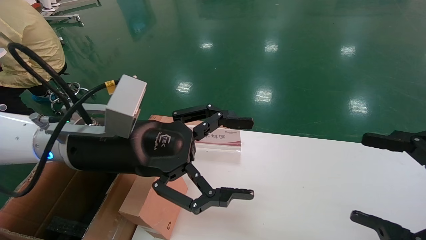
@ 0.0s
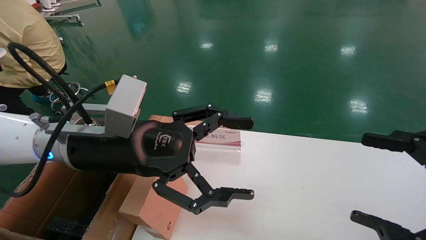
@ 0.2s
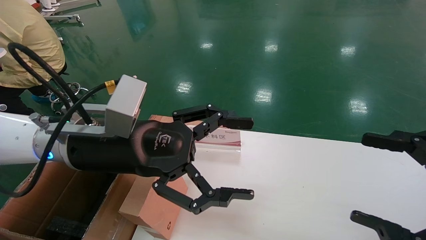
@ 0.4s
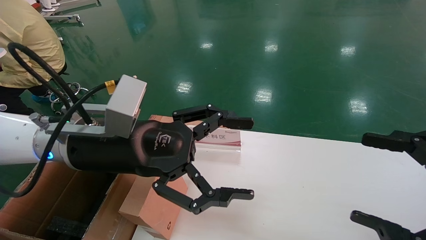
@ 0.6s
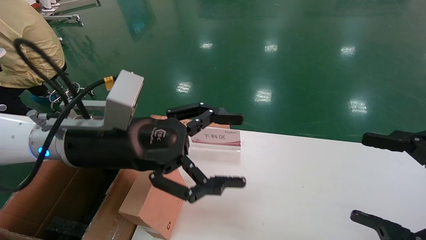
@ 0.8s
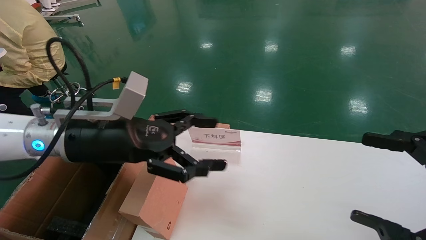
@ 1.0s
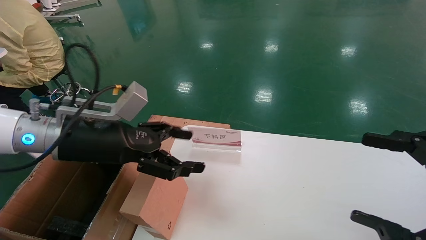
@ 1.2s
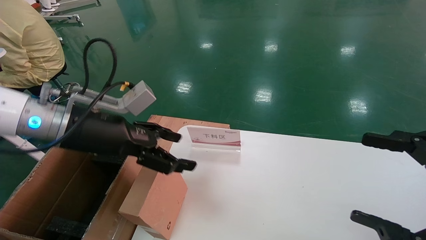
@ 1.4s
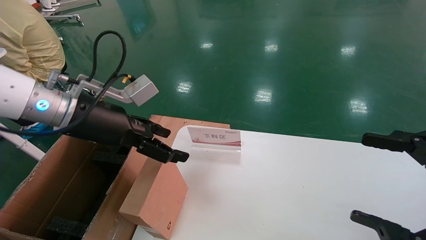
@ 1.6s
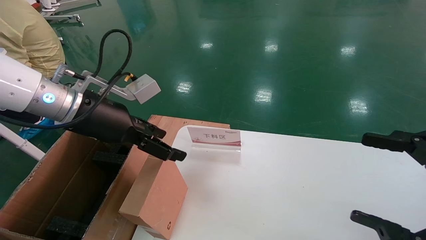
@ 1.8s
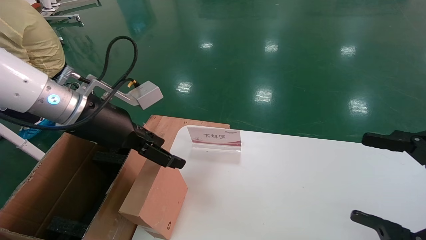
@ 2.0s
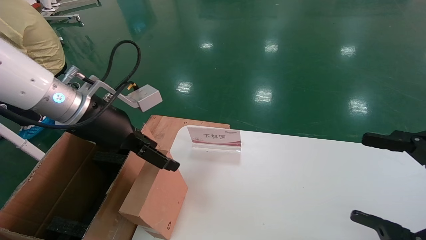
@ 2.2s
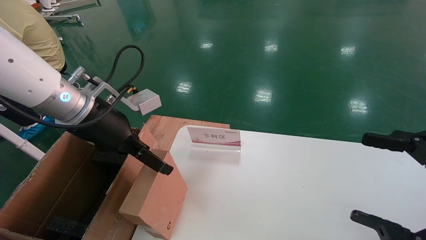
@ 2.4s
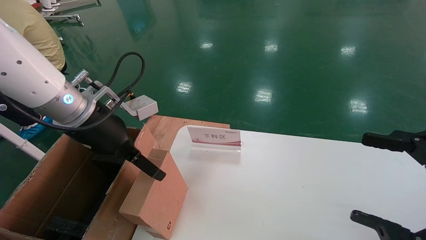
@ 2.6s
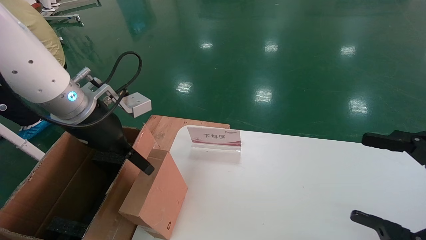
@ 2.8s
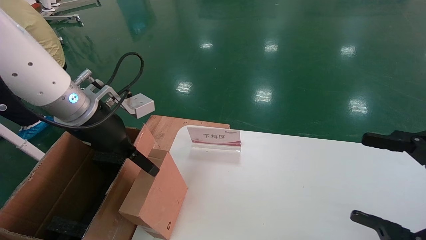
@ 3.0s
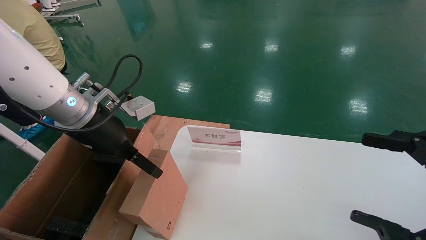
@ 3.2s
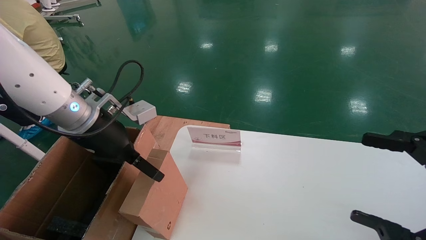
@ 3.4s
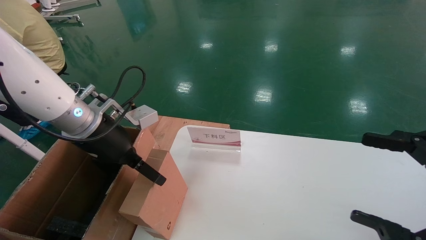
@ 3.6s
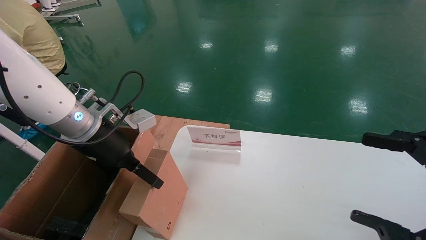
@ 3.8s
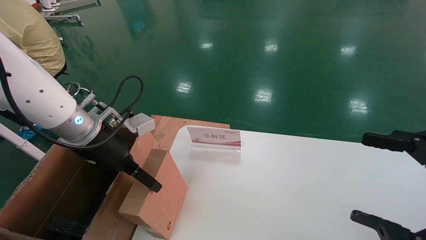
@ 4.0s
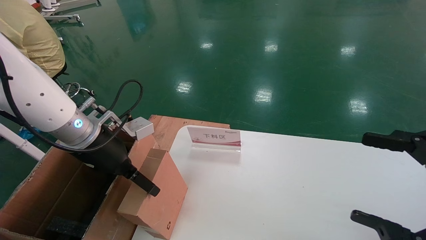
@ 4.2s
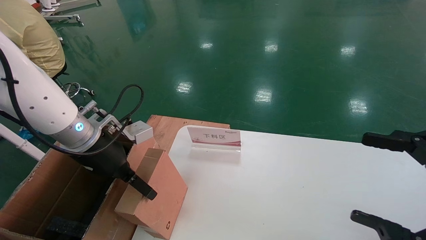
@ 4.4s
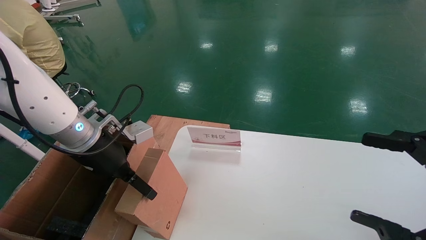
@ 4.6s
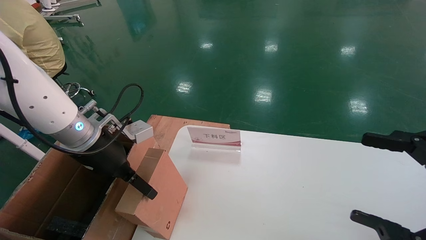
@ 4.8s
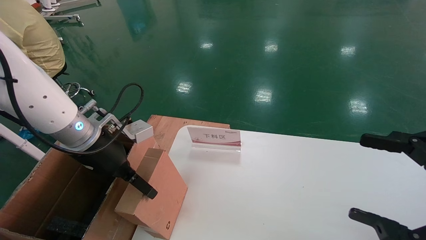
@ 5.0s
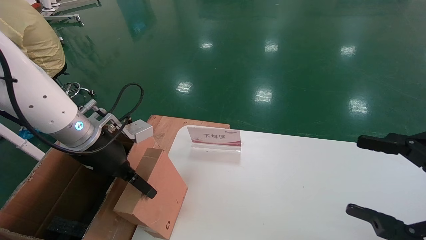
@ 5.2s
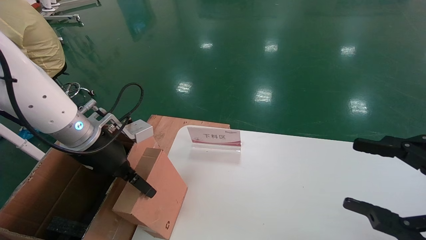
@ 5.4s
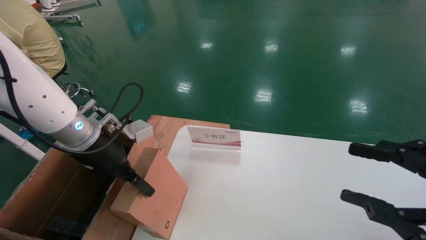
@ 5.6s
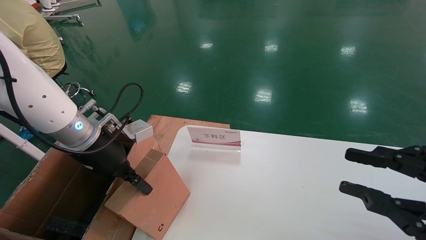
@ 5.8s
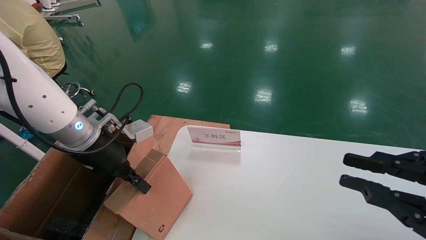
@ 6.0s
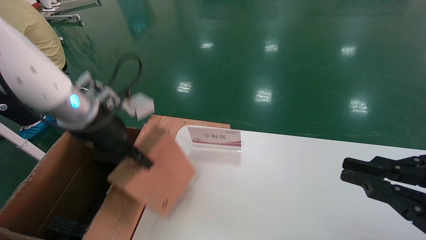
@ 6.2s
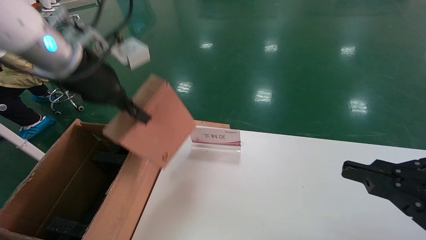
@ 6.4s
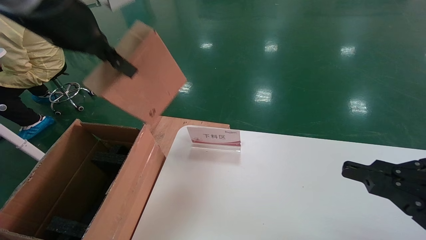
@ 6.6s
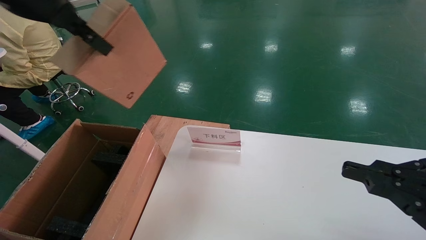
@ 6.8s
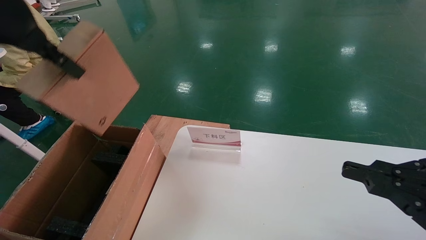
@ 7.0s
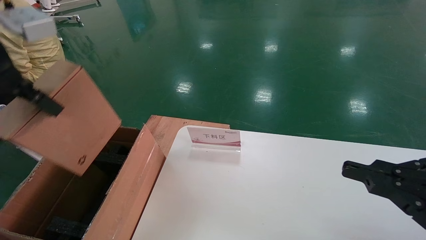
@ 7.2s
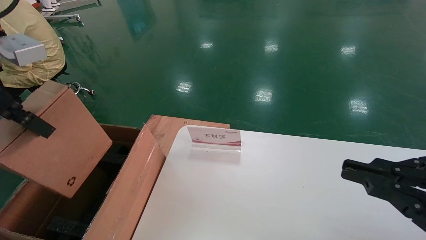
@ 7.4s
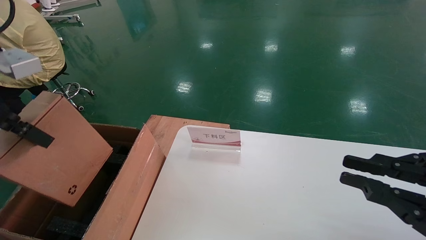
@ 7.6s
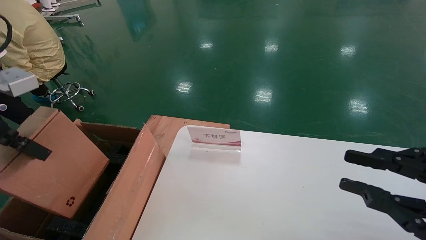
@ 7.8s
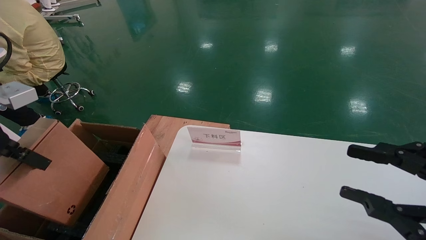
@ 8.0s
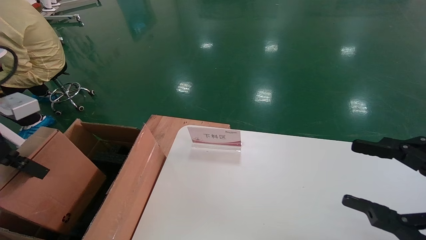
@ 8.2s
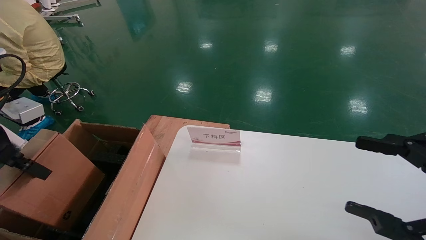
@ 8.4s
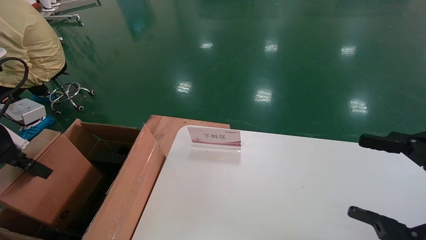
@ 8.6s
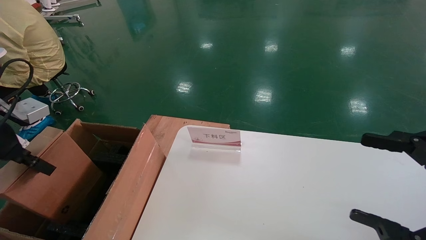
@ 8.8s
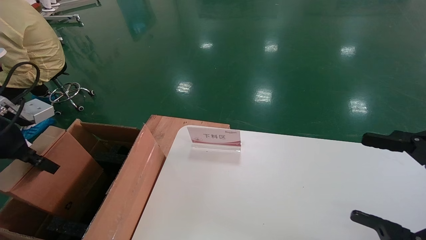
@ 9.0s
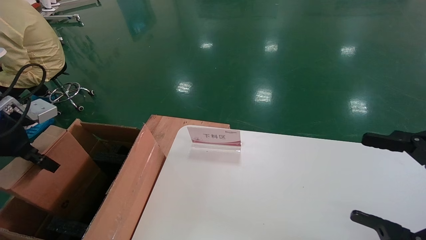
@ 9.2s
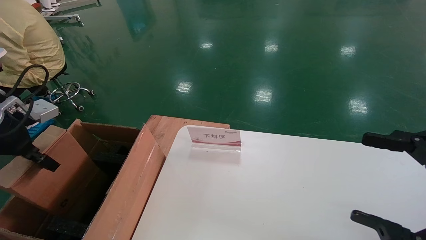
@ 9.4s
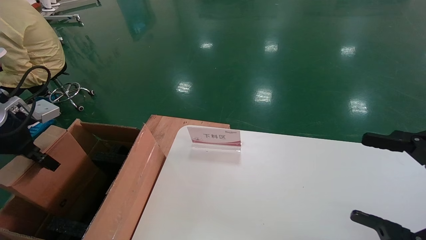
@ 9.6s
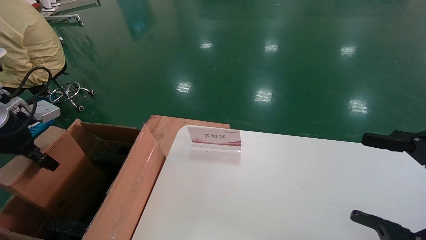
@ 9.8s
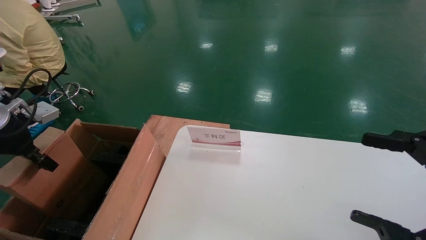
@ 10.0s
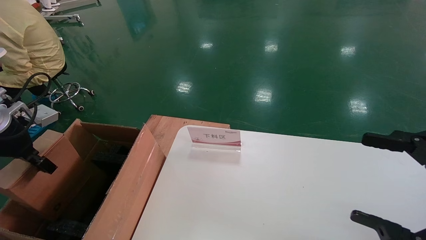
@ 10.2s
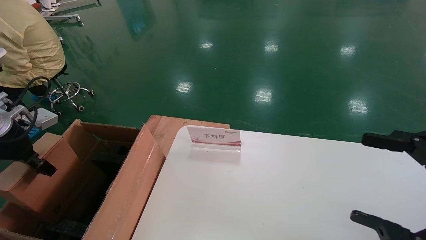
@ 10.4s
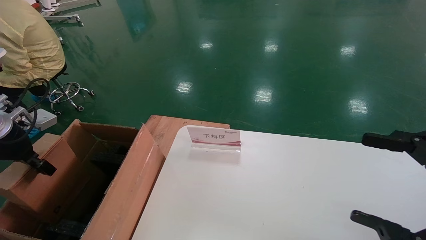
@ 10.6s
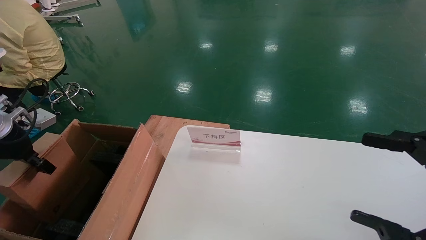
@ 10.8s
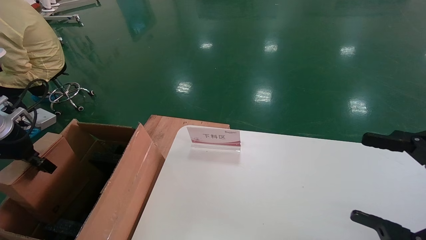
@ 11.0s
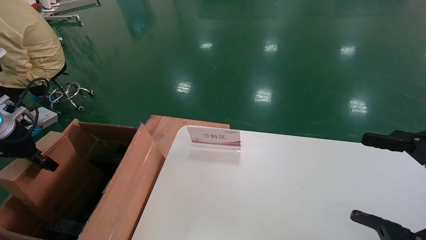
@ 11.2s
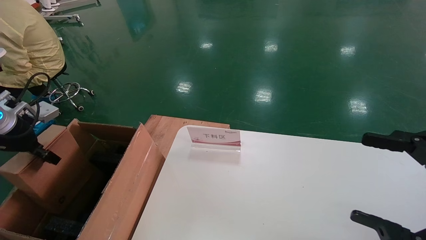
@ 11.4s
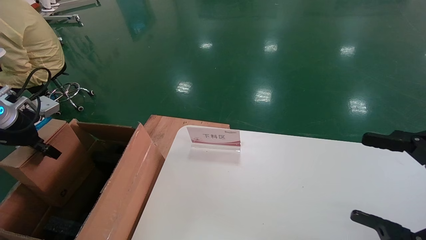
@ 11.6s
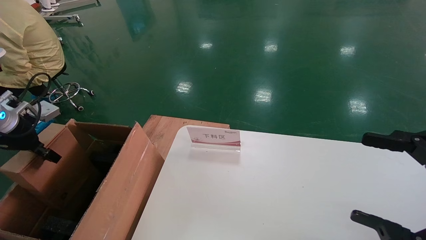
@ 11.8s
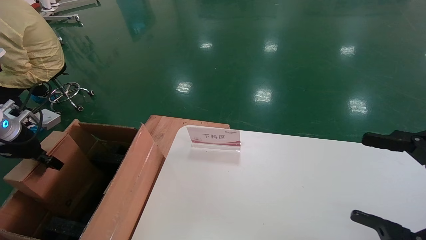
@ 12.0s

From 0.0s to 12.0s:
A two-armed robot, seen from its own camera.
Task of the whole recording: pick up the small cardboard box and load it into the large cardboard box.
Step, from 1.0s to 5.8s: Pick up the mouse and power cord box.
From 0.0s to 1.6s: The left gripper shifts roughly 5 cm to the left.
From 3.0s to 4.4s: The left gripper moves downward, some 5 cm.
From 4.4s to 6.0s: The right gripper closes up, while the left gripper closes up.
From 6.0s to 7.6s: The left gripper travels upward, backward and to the left by some 20 cm.
From 7.6s to 9.0s: The left gripper travels downward, to the left and forward by some 15 cm. Meanwhile the right gripper opens its fingers.
From 9.0s to 10.4s: The left gripper ends up about 5 cm from where it was.
From 10.4s to 12.0s: The left gripper changes place by some 5 cm.

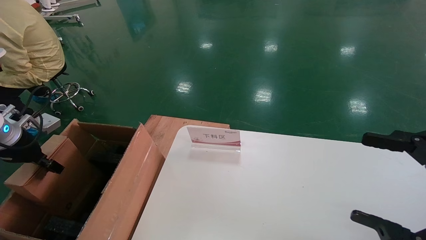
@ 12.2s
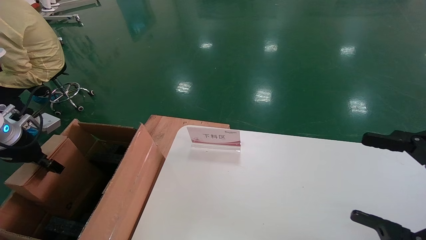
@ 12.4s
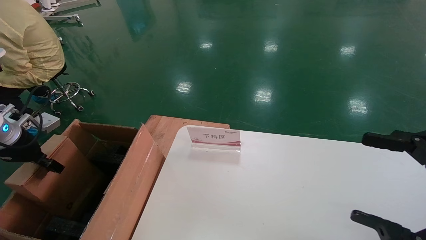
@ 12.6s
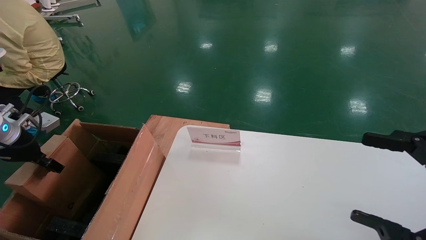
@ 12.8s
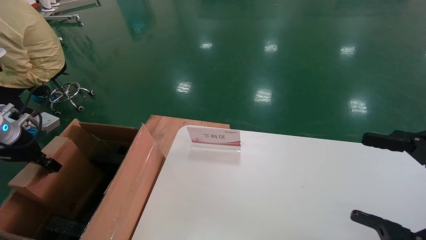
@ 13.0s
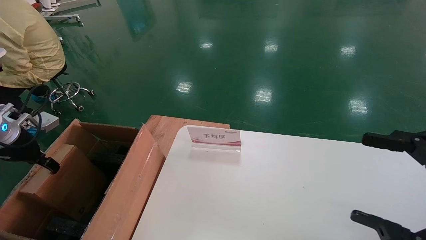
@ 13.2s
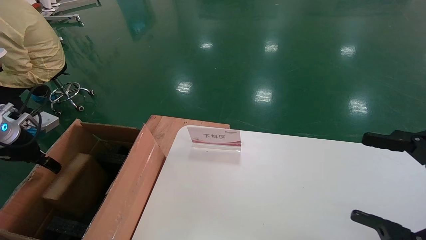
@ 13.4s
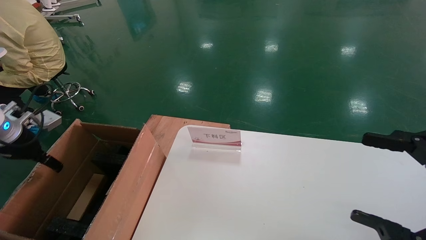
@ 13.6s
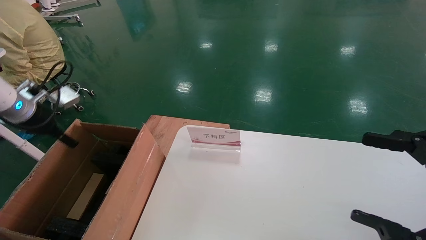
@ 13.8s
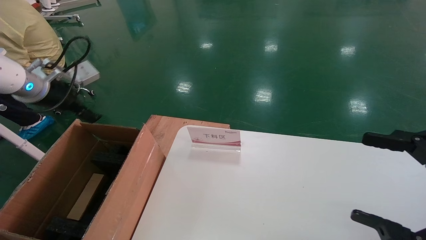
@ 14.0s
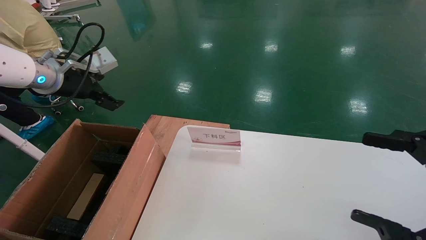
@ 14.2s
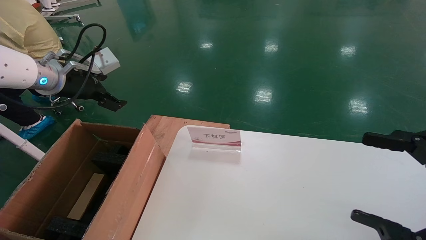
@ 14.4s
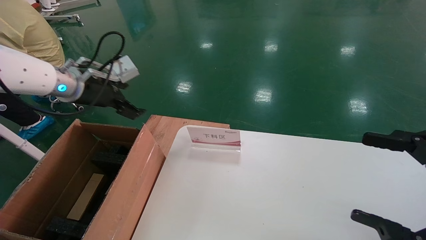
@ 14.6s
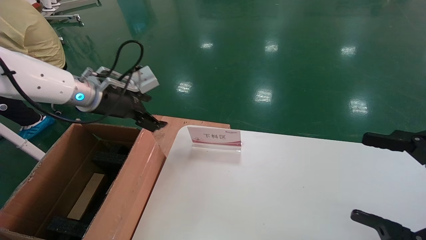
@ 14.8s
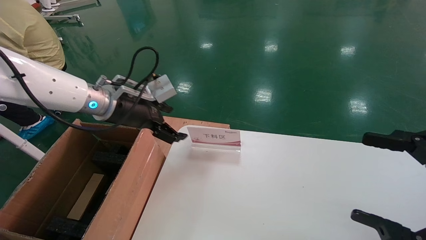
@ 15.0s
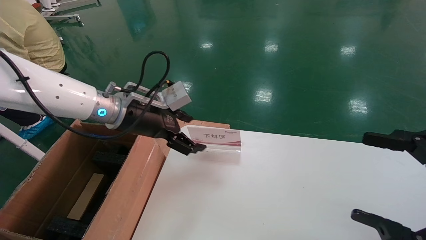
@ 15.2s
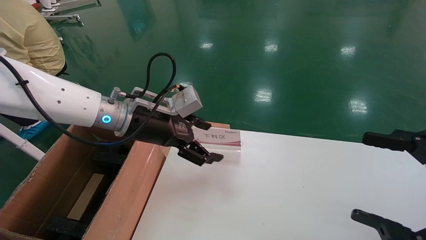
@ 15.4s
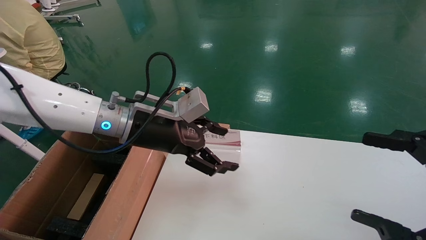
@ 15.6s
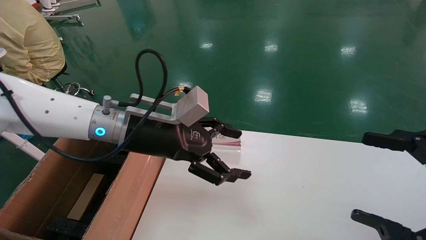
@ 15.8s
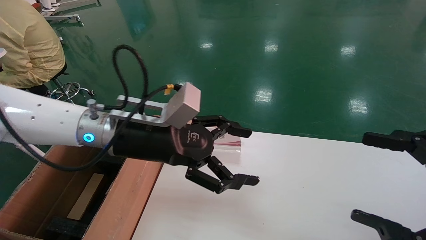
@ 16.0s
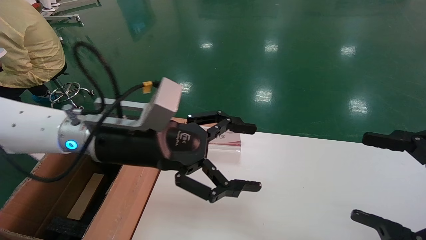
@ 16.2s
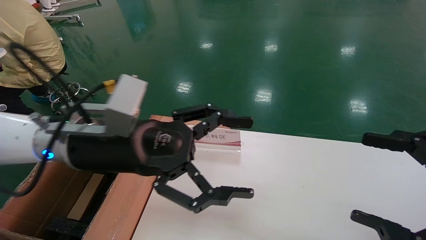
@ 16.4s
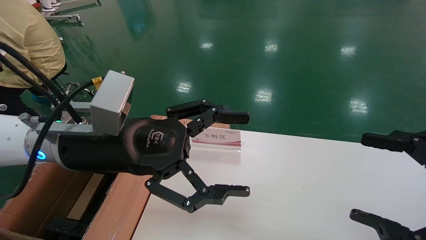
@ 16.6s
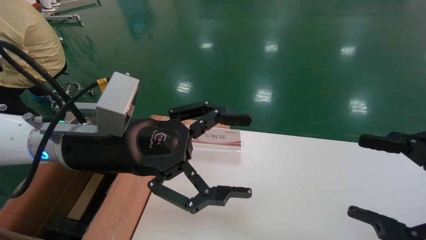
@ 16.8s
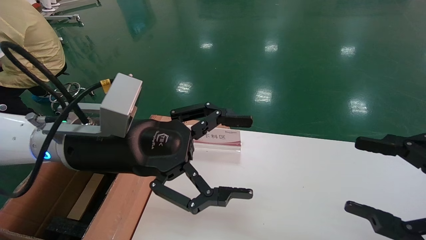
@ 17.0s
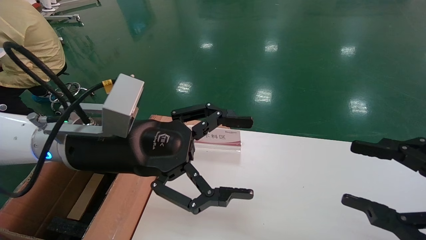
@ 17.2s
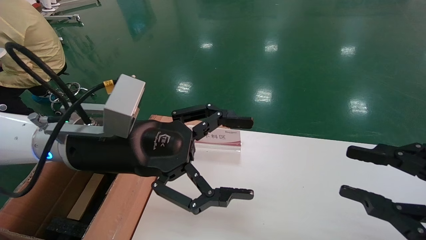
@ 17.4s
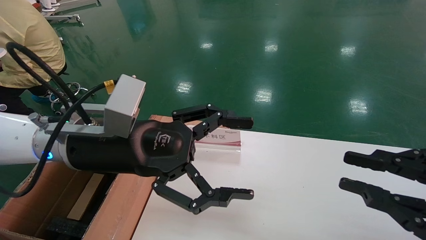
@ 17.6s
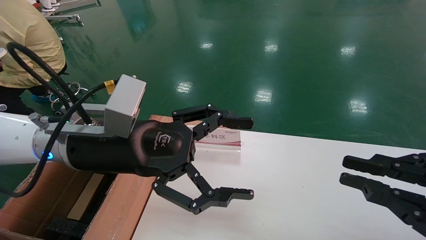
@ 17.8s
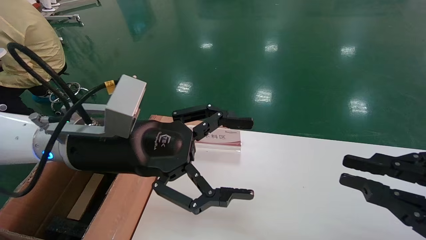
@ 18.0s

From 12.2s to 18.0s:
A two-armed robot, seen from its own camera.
Task of the whole recording: pick up the small cardboard box and load it into the large cardboard box.
From 12.2s to 13.6s: The left gripper opens up.
From 13.6s to 15.0s: The left gripper goes approximately 20 cm to the right.
From 15.0s to 16.6s: The left gripper travels backward and to the right by about 15 cm.
From 16.6s to 18.0s: The right gripper closes up.
